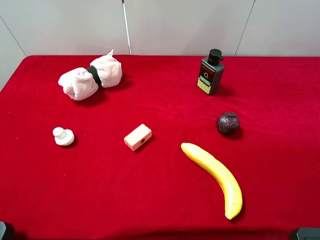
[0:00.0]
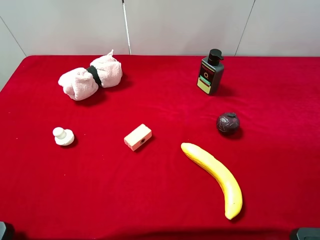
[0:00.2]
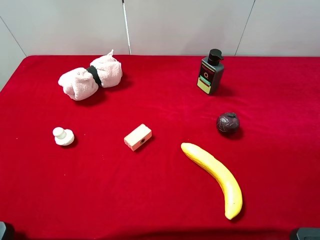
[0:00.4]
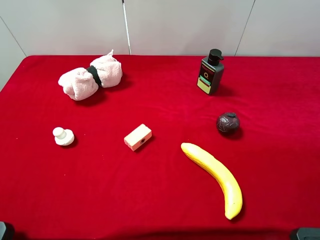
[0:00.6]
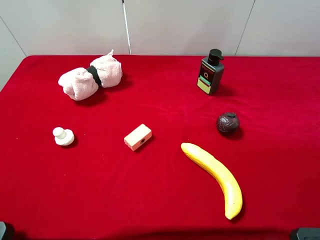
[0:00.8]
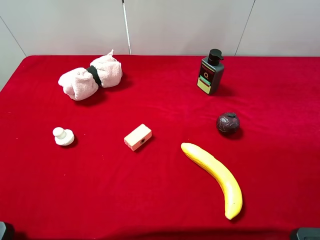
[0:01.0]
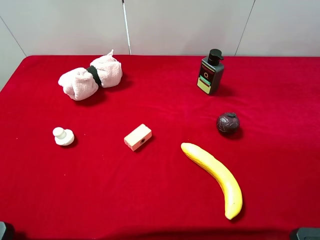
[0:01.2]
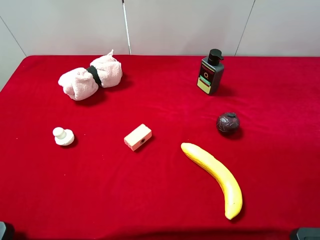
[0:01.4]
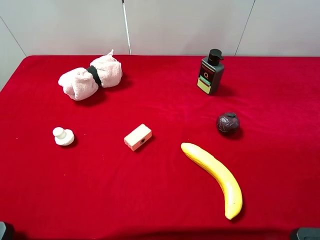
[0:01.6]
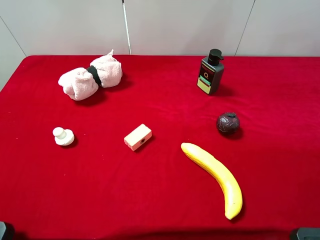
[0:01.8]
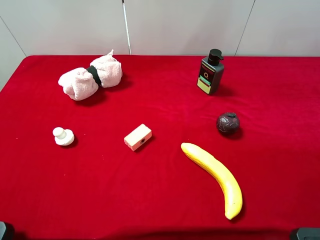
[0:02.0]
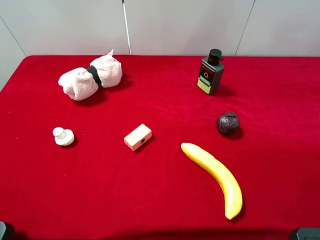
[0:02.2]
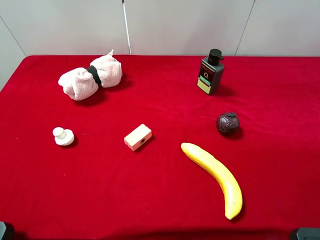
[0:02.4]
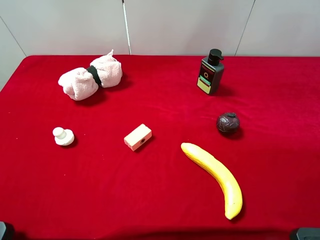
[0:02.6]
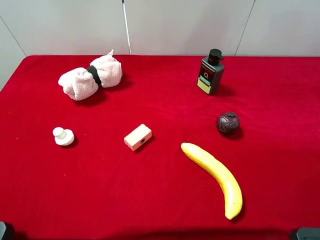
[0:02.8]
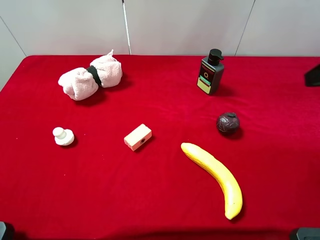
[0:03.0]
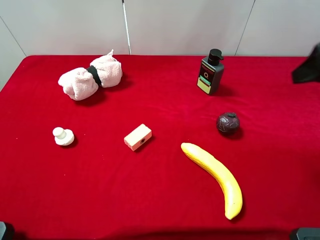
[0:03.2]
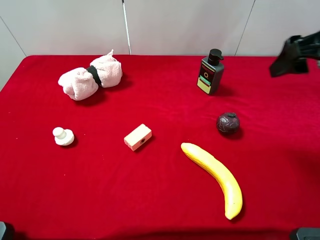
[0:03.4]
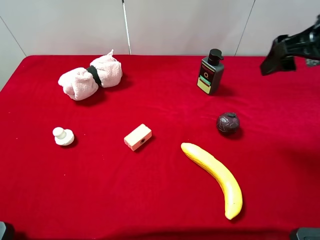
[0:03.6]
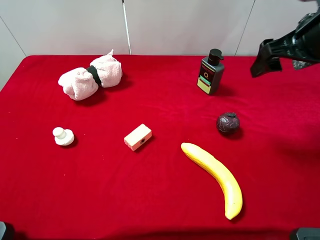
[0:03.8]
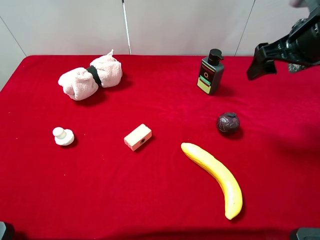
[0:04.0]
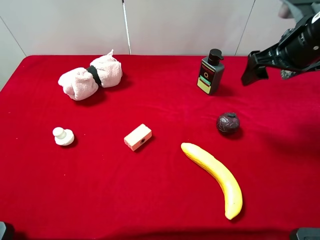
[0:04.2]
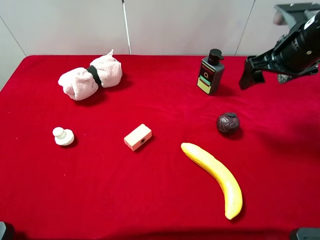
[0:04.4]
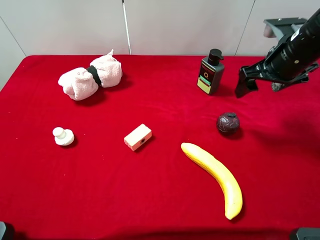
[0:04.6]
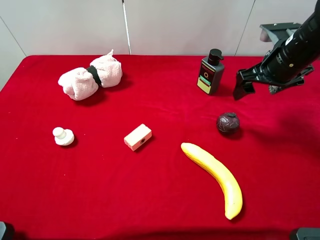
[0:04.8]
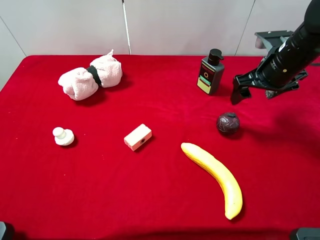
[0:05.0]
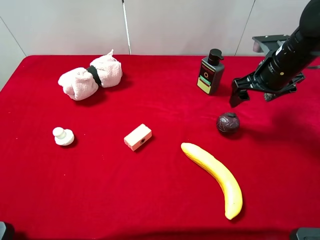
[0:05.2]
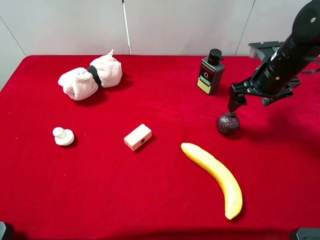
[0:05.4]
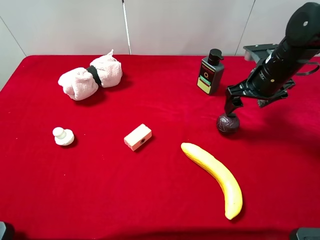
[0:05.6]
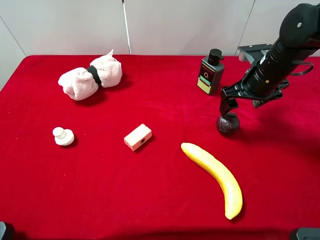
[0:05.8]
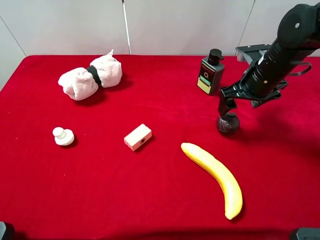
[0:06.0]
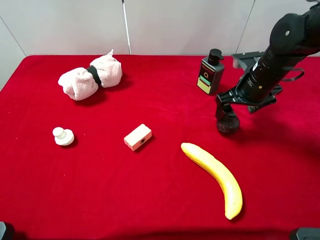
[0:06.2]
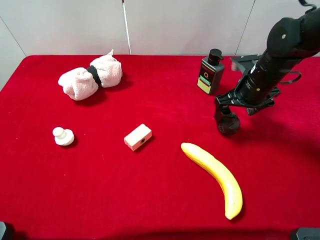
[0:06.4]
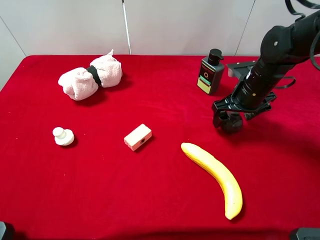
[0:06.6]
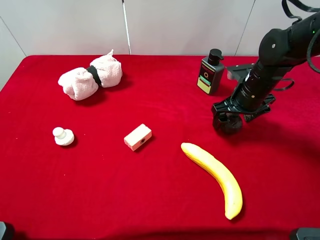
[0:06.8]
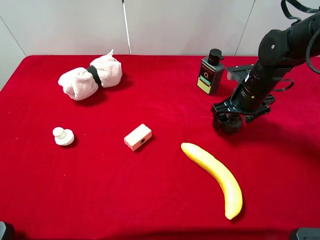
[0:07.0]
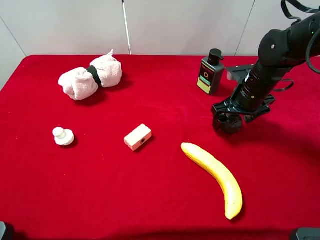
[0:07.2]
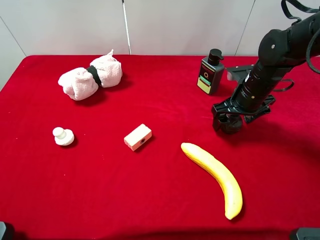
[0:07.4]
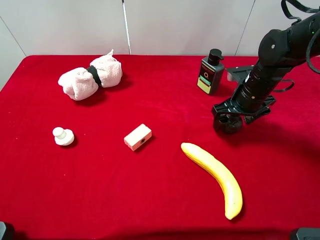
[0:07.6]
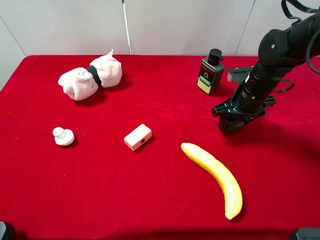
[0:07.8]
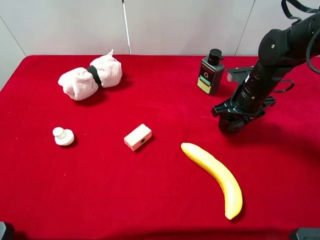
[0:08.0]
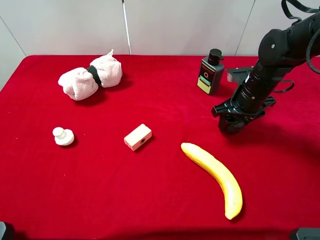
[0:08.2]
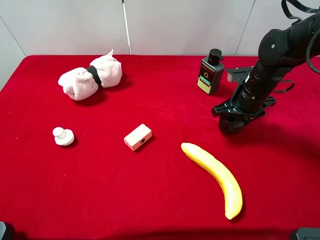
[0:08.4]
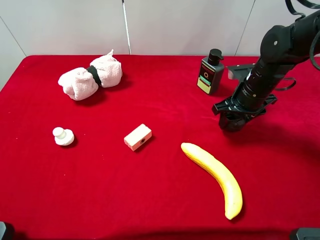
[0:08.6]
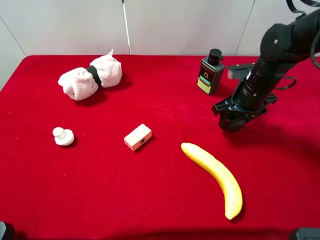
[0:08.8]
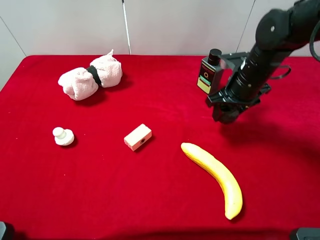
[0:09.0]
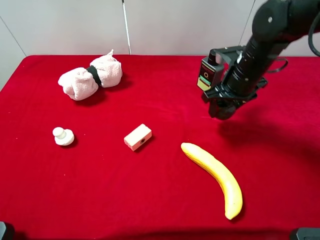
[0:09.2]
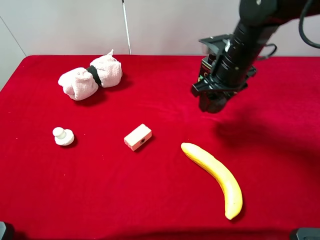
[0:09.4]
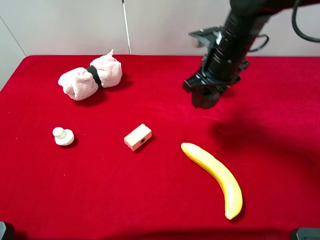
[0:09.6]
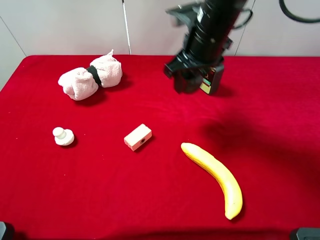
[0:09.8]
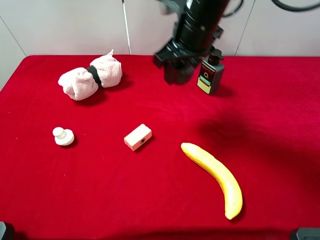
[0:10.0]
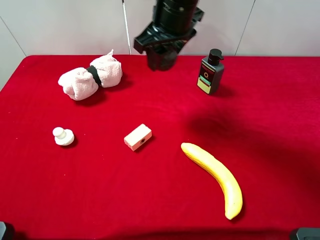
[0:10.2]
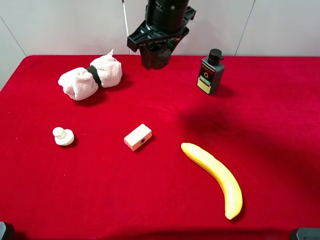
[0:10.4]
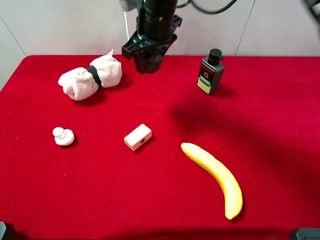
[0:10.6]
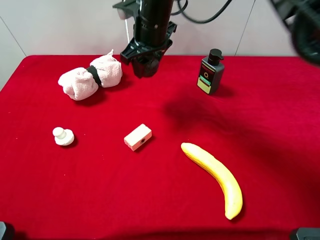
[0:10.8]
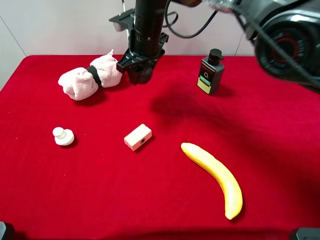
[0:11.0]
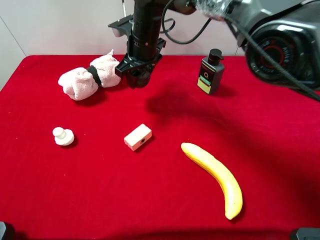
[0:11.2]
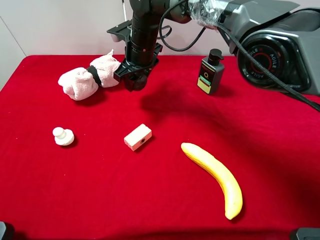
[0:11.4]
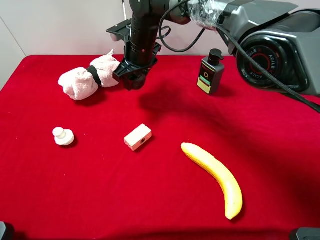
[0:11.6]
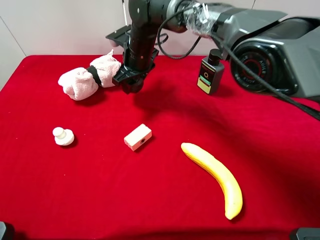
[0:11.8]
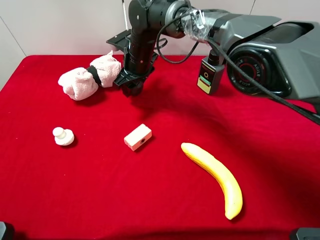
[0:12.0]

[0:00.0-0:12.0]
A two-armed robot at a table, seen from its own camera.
Task of the whole recording: the gripper move the object.
Step, 0:00.0 to 0:07.8: Grasp the mangosteen with the right gripper.
0:00.0 to 0:01.6: Neither gripper changes place.
0:03.0 to 0:04.4: The right gripper goes some 15 cm forward and downward.
0:04.4 to 0:06.0: The right gripper heads downward, covering roughly 10 cm.
0:06.0 to 0:07.6: The grippers stay close to where they were, moving slightly.
0:07.6 to 0:09.0: The right gripper closes up.
0:09.0 to 0:10.4: The right gripper goes some 20 cm to the left and upward.
0:10.4 to 0:12.0: The right gripper goes about 15 cm downward, forward and to the left.

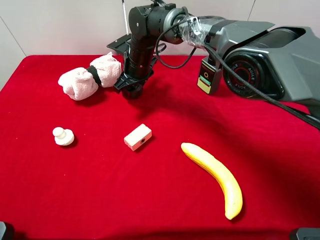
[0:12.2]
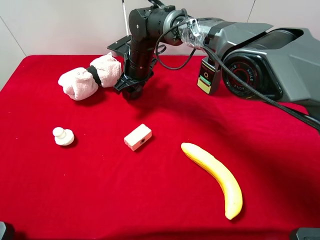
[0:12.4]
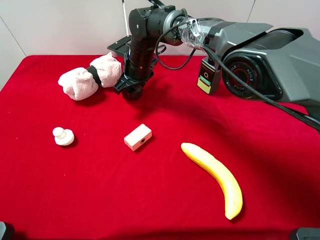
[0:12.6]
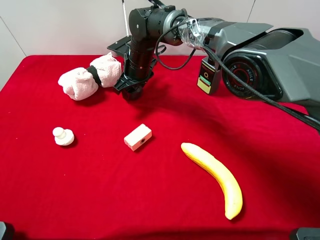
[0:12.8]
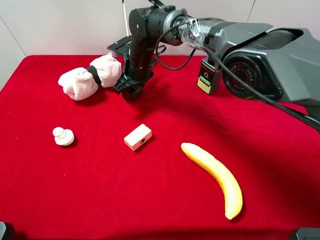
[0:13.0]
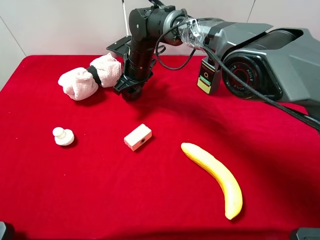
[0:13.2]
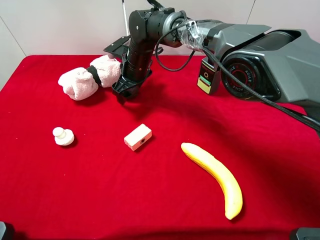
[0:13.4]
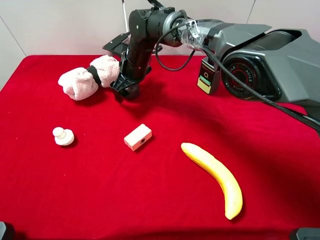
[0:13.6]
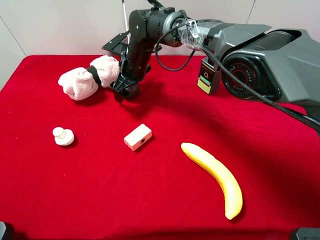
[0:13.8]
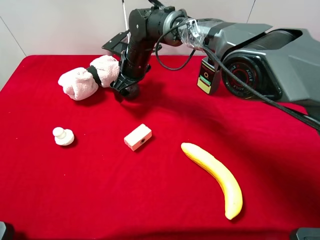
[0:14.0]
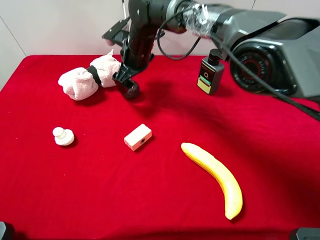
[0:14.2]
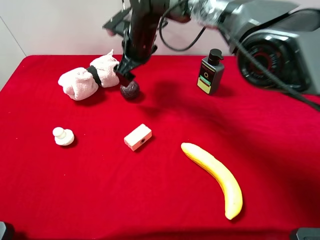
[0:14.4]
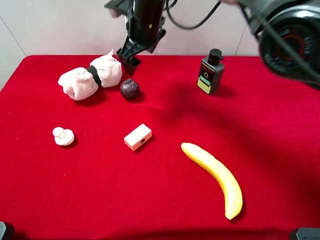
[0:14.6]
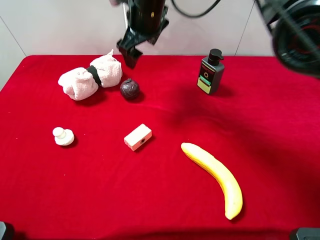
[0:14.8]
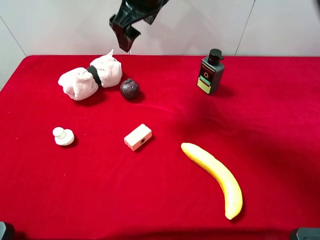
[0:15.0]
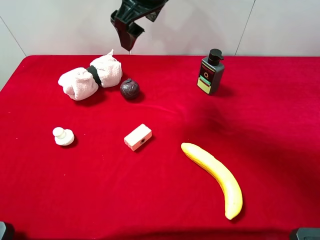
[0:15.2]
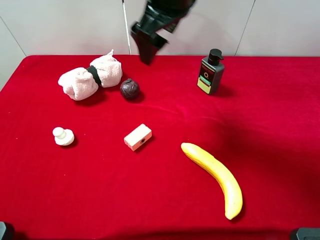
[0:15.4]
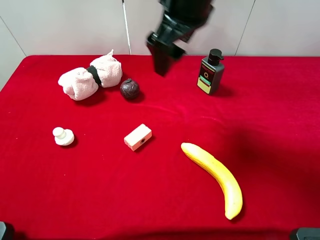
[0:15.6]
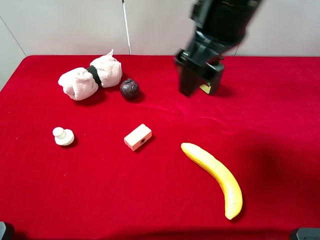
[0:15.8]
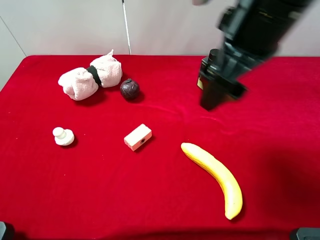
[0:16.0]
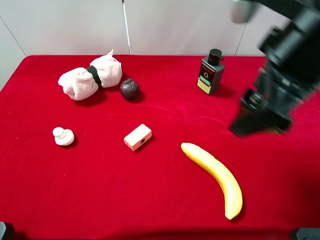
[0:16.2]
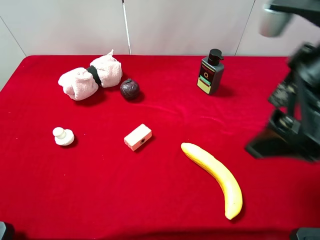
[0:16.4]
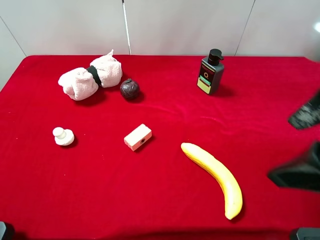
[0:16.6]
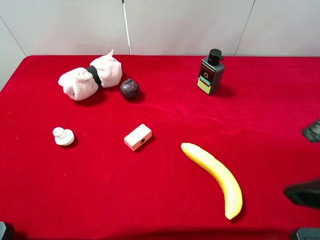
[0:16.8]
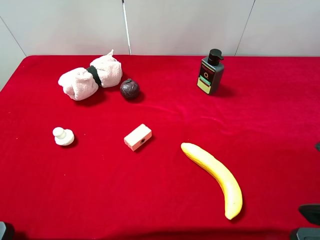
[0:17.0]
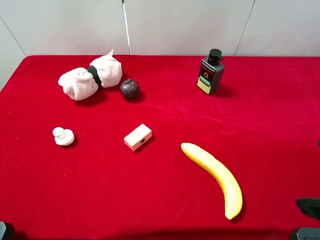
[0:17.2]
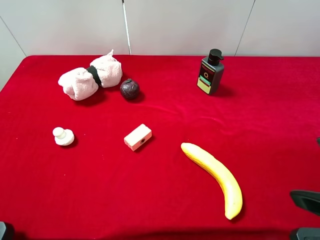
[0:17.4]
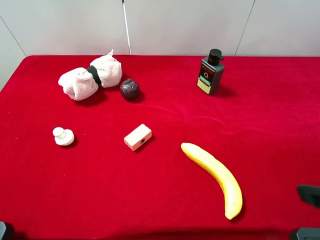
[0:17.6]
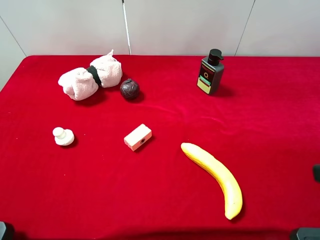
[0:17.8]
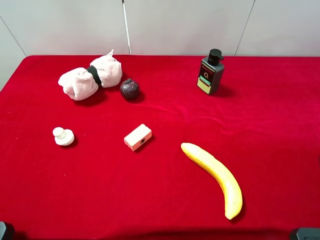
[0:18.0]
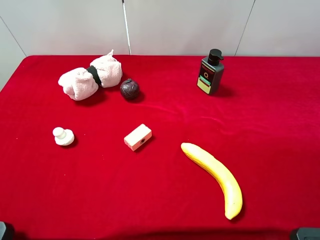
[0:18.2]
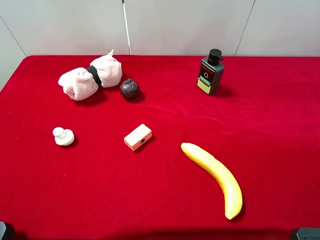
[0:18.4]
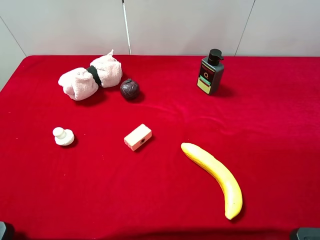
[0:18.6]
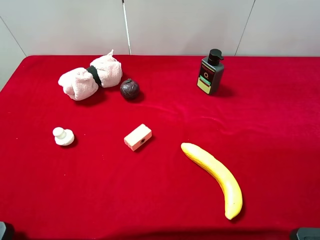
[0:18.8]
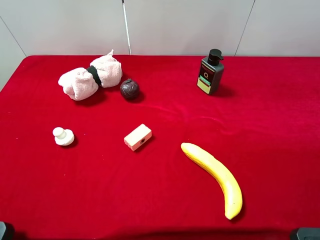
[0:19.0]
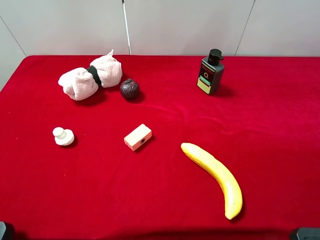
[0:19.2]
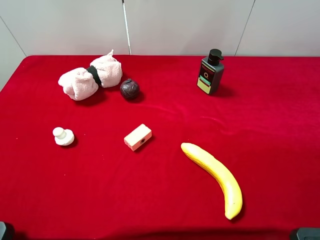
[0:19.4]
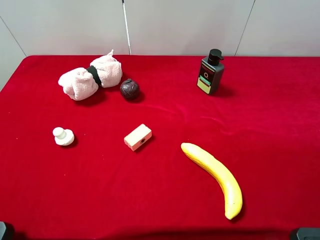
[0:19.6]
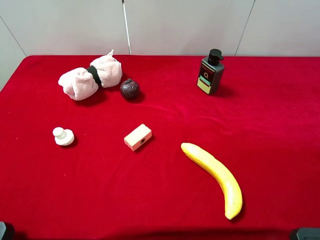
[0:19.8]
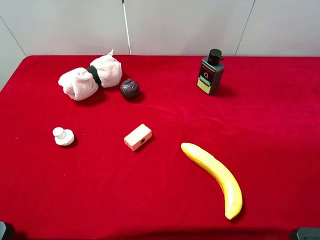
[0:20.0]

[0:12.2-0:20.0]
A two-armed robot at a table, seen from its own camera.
Task of the whole recording: the gripper move the object.
Step, 0:12.2 to 0:14.6: Place the mangosteen on the table with the right gripper.
0:12.2 to 0:13.8: The right gripper opens.
0:13.8 to 0:15.4: The right gripper travels upward and backward by some 25 cm.
0:15.4 to 0:16.8: The right gripper is displaced backward and to the right by about 30 cm.
0:16.8 to 0:18.4: The right gripper travels to the right by about 10 cm.
